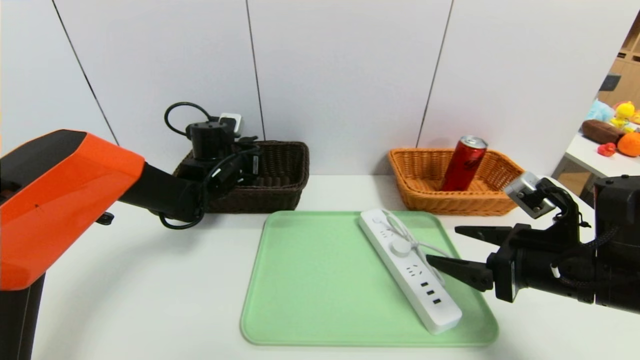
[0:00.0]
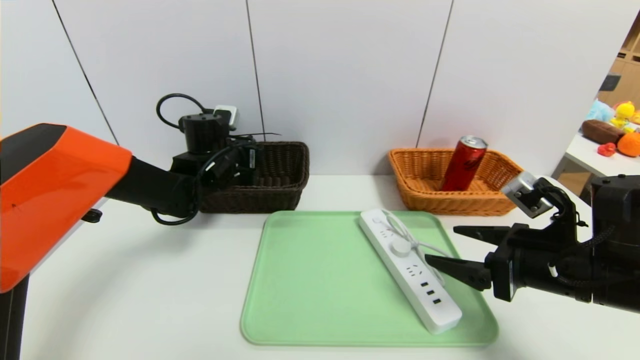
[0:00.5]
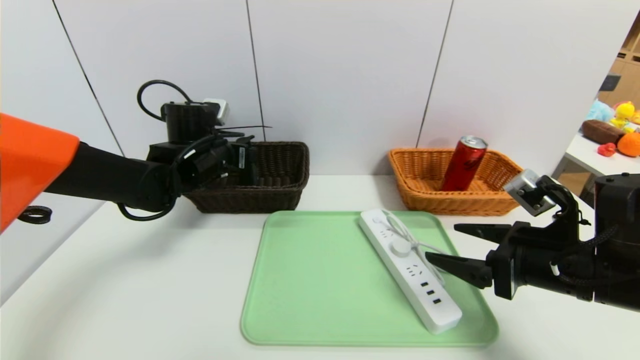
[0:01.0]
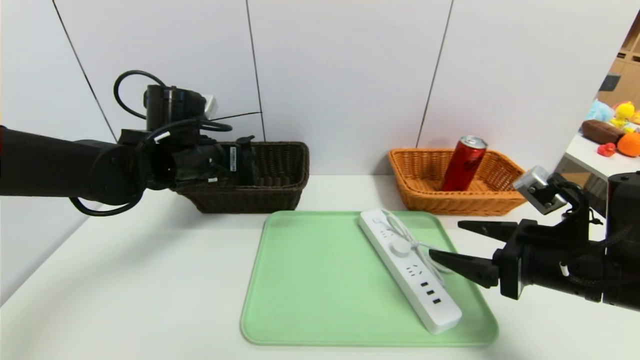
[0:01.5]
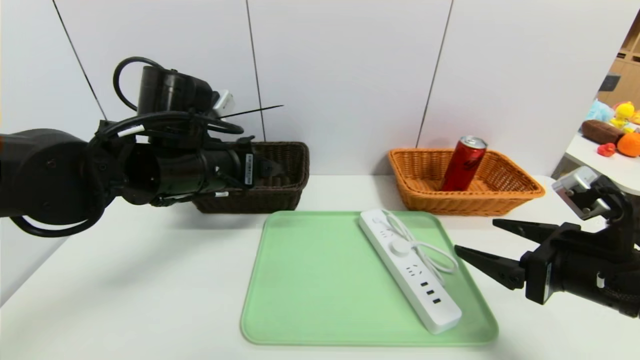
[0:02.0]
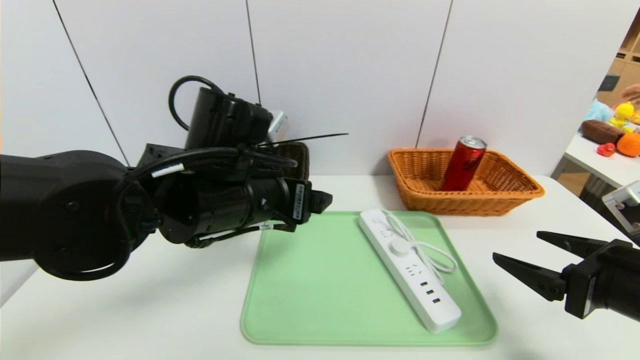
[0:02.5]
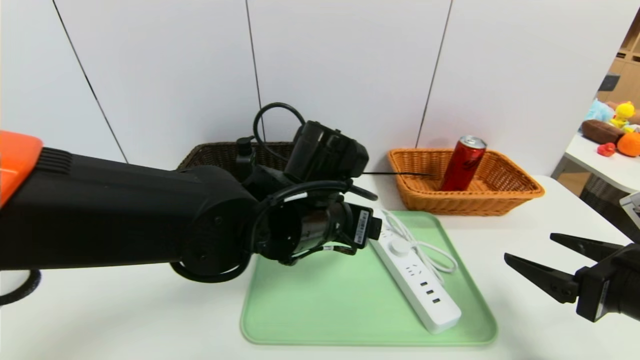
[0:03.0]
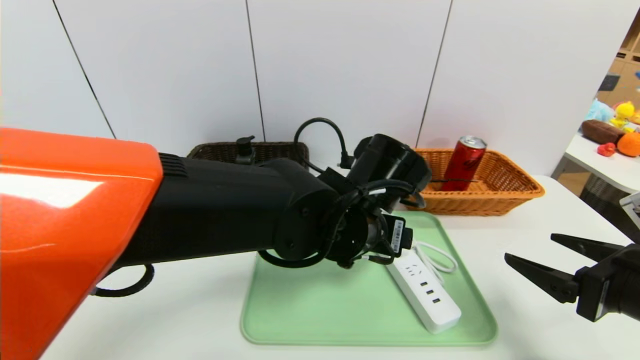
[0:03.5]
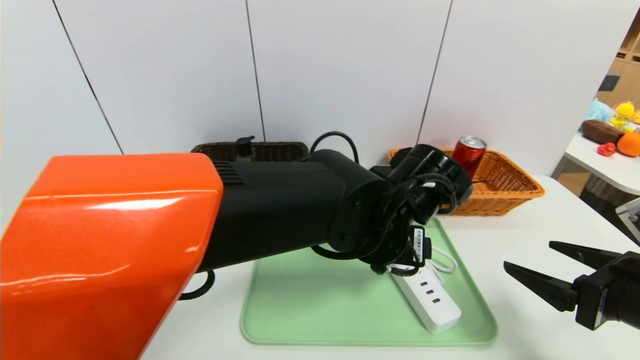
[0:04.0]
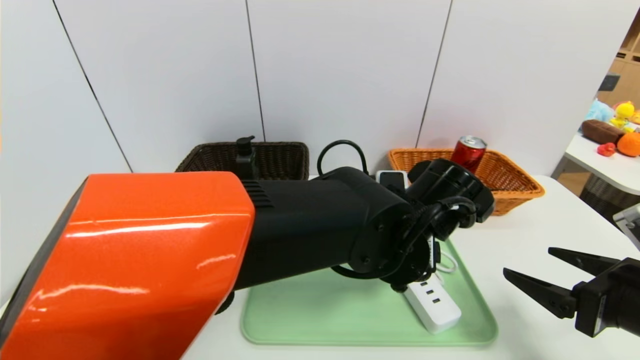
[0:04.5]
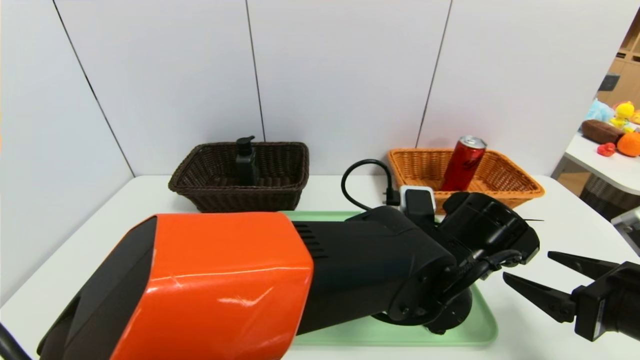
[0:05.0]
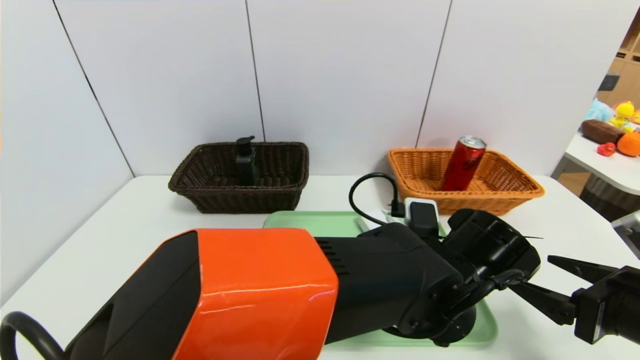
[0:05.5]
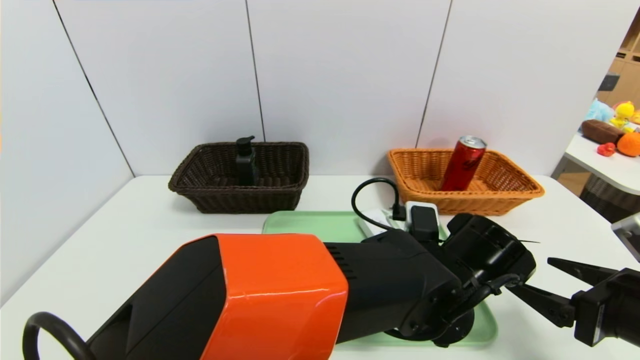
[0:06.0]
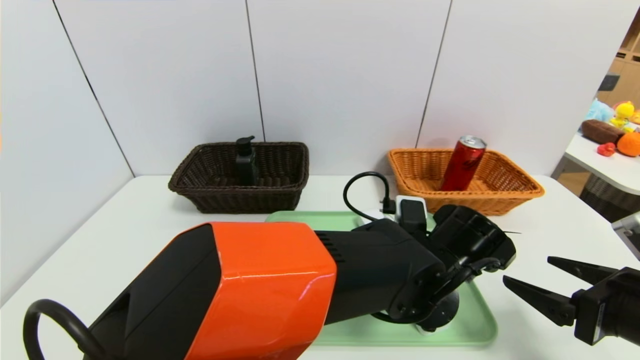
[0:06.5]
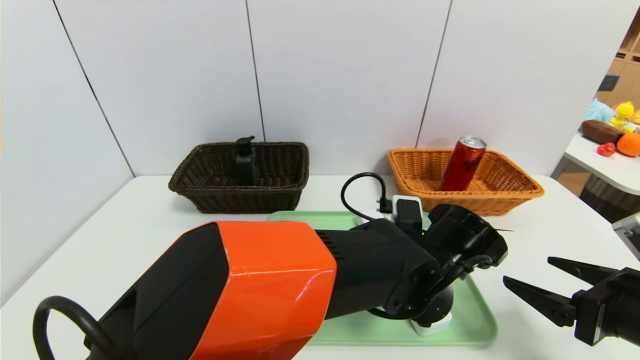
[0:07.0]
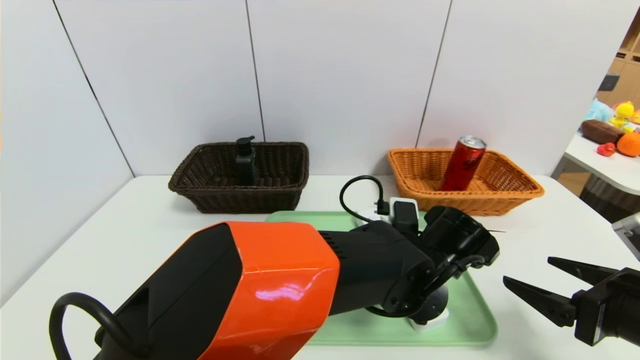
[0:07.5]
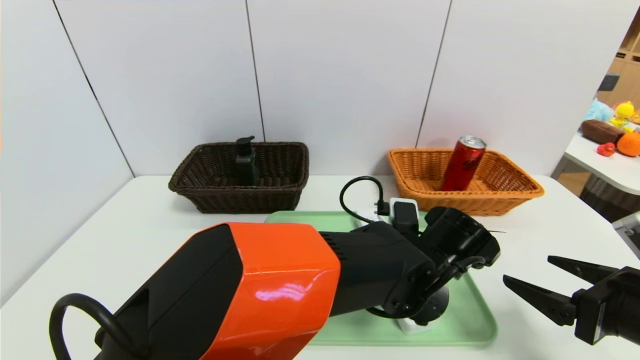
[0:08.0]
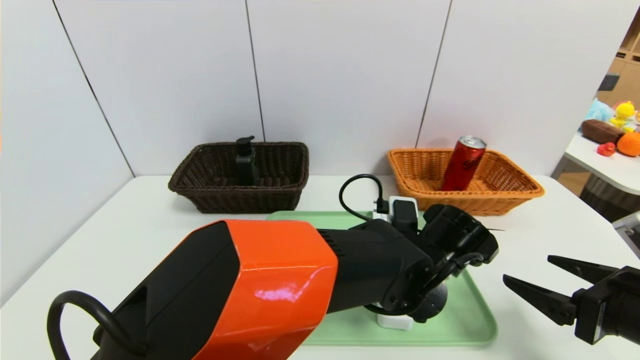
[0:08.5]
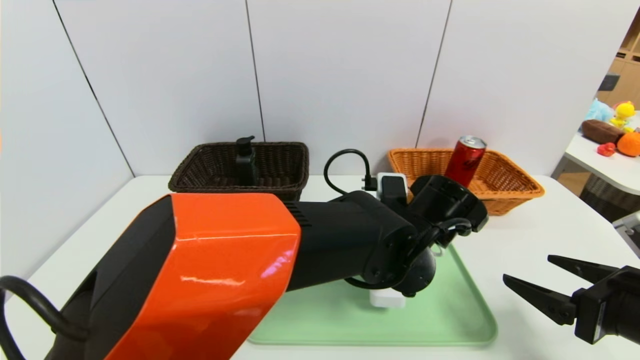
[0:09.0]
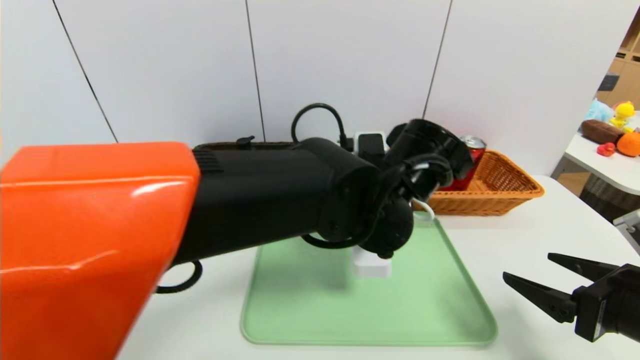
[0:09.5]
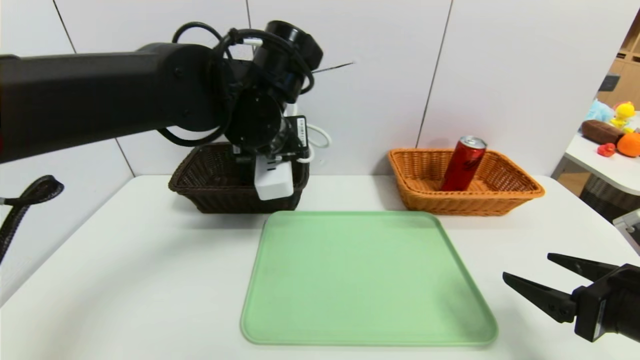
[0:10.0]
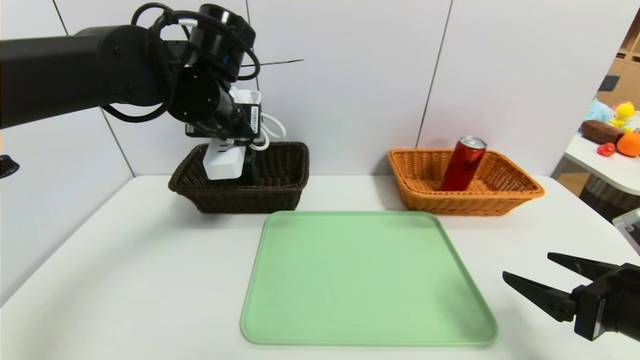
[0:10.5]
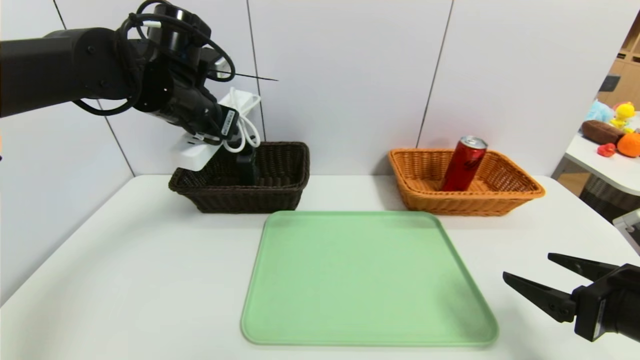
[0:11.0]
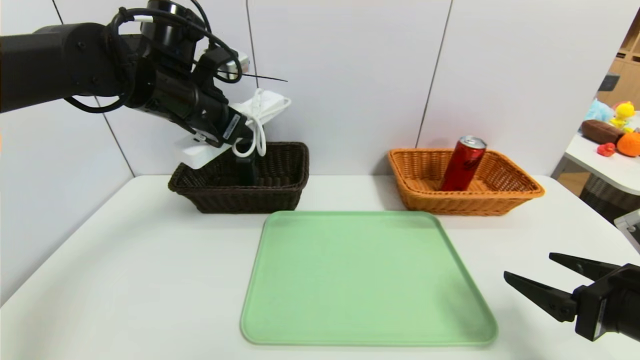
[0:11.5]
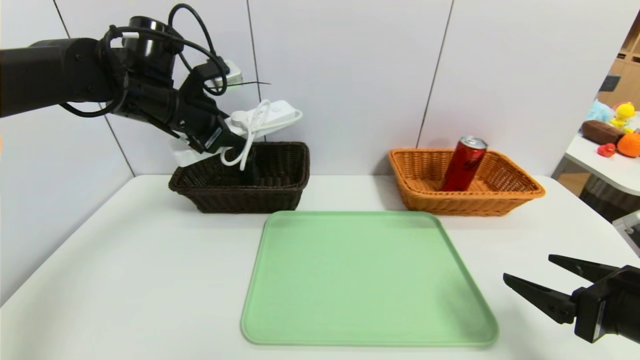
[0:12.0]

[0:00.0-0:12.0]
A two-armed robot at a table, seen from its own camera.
Task of the whole recording: place the food in the right basket with the right gripper, and place the non food items in the left basket with the left gripper.
0.0 to 2.0 s: The left gripper shifts about 20 cm backward and upward, and opens up.
2.0 to 4.0 s: The left gripper moves to the right, some 20 cm.
4.0 to 6.0 s: The left gripper is displaced downward and to the right by about 10 cm.
6.0 to 8.0 s: The left gripper closes.
8.0 to 10.0 s: The left gripper moves to the left and upward, some 25 cm.
10.0 to 12.0 s: The left gripper travels to the left and forward by approximately 15 cm.

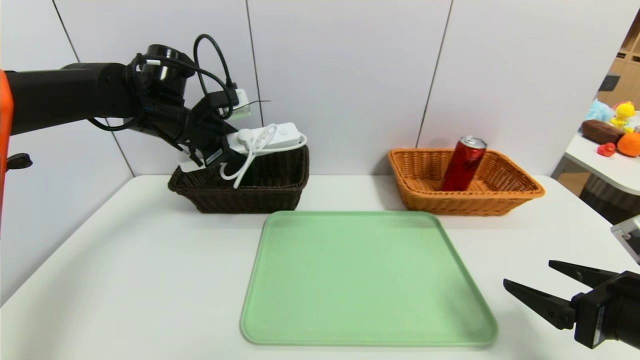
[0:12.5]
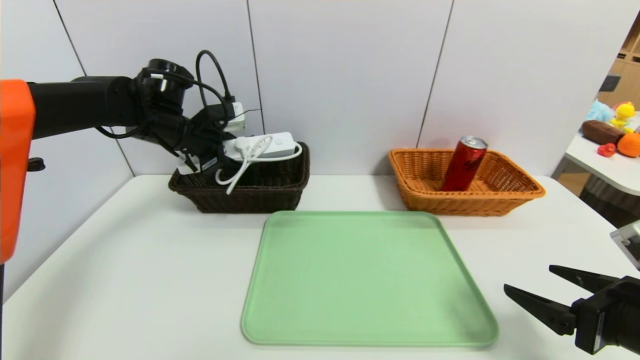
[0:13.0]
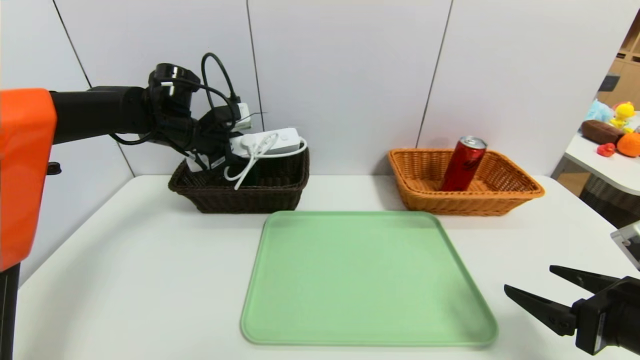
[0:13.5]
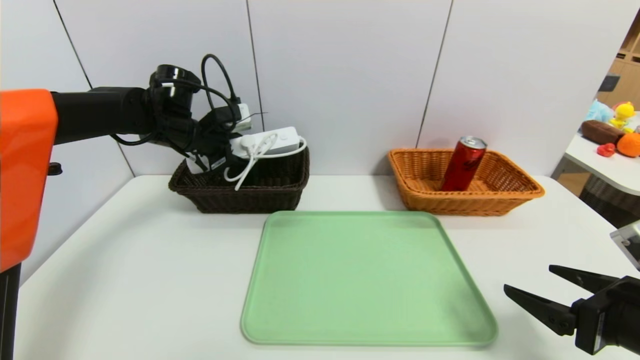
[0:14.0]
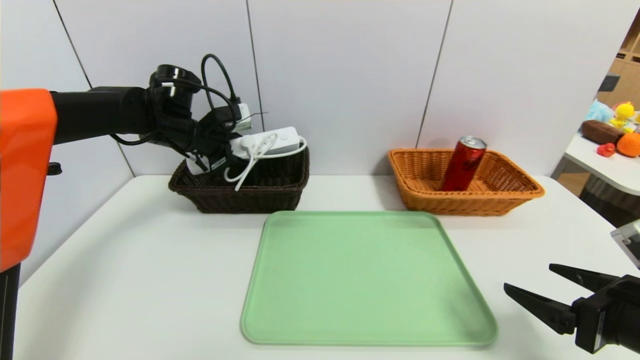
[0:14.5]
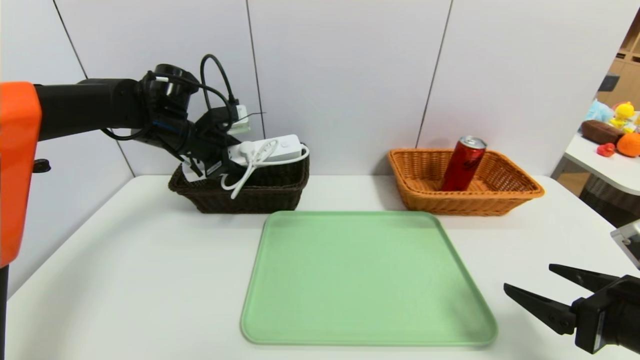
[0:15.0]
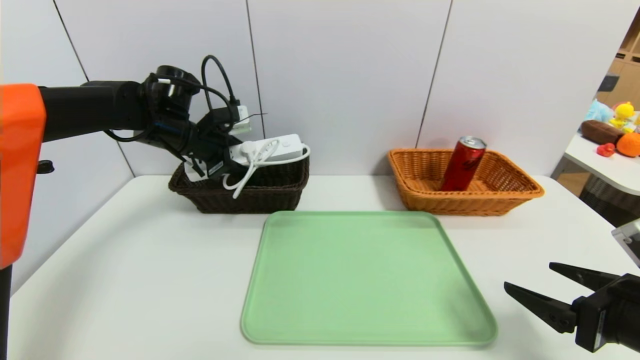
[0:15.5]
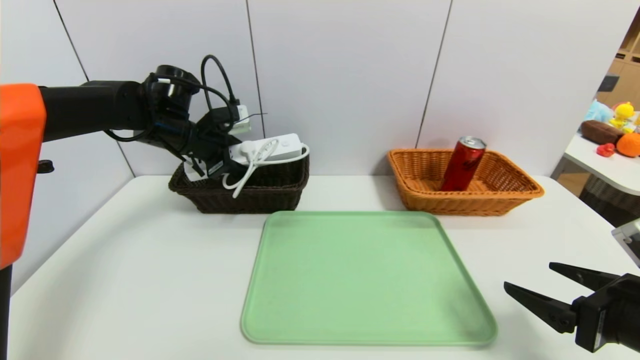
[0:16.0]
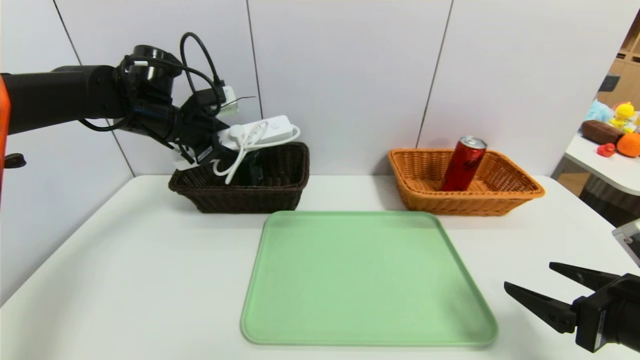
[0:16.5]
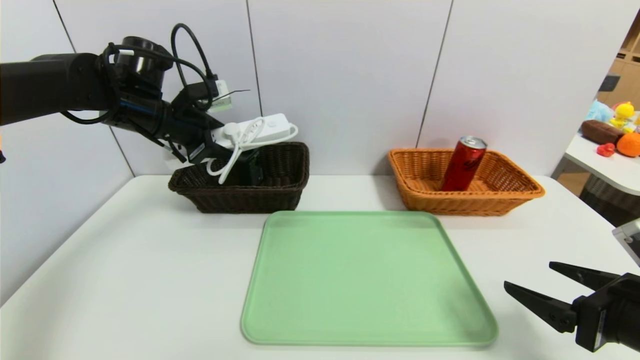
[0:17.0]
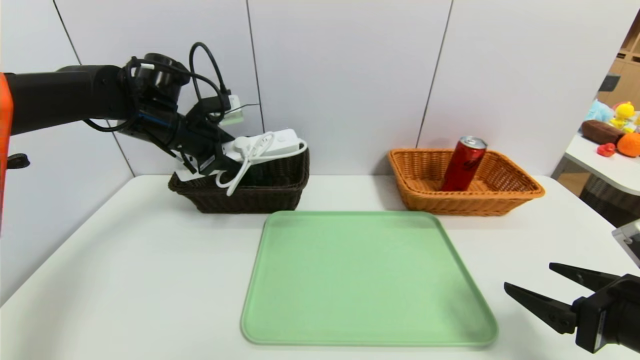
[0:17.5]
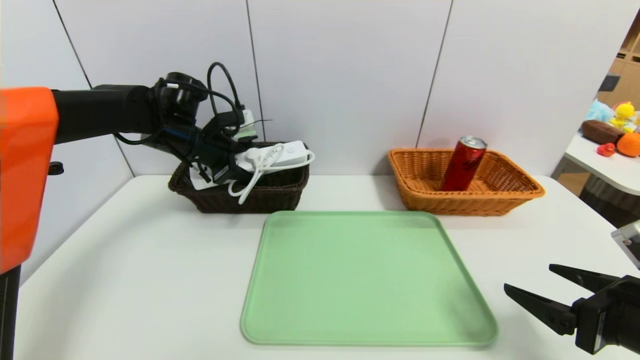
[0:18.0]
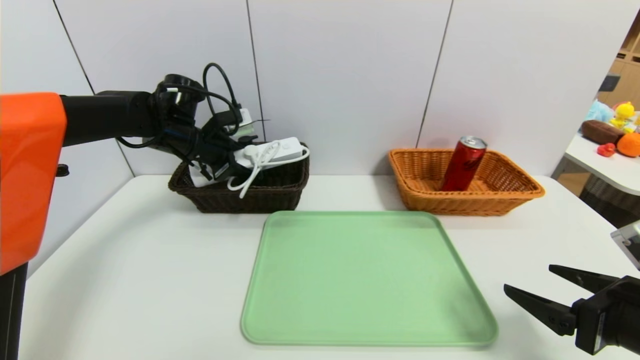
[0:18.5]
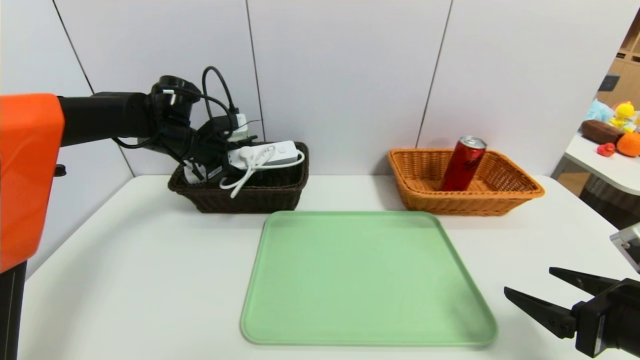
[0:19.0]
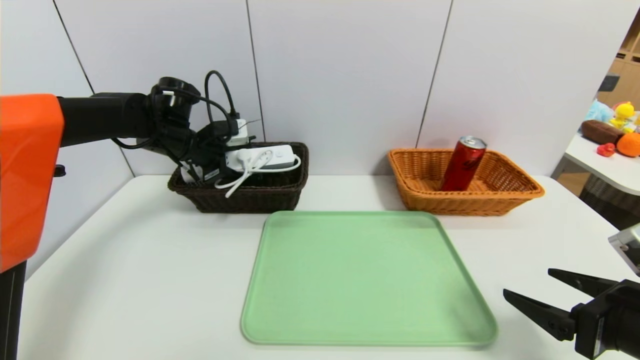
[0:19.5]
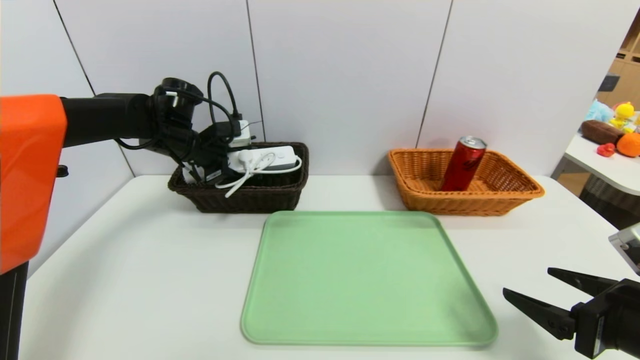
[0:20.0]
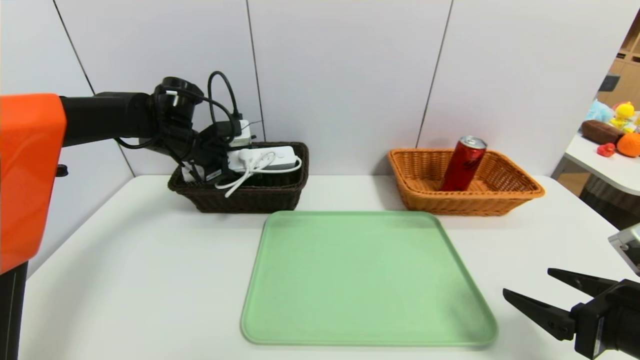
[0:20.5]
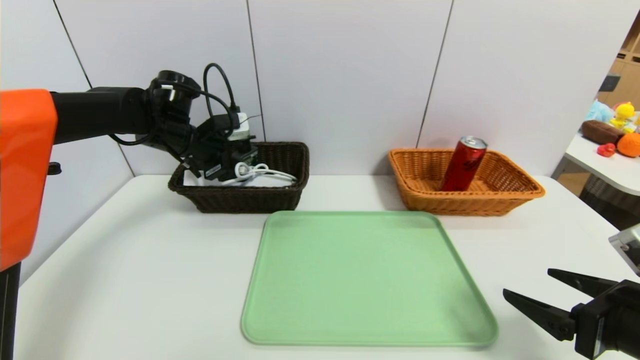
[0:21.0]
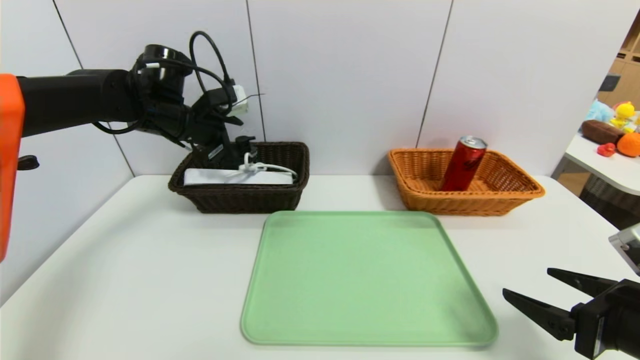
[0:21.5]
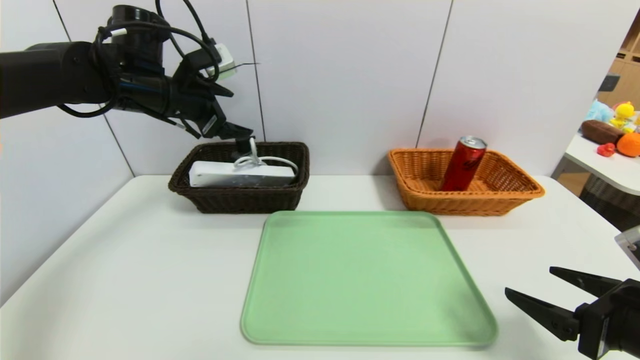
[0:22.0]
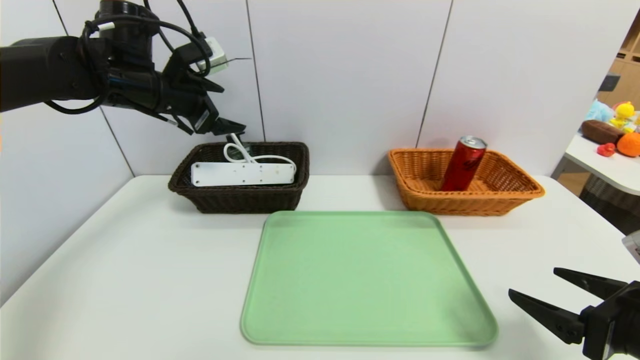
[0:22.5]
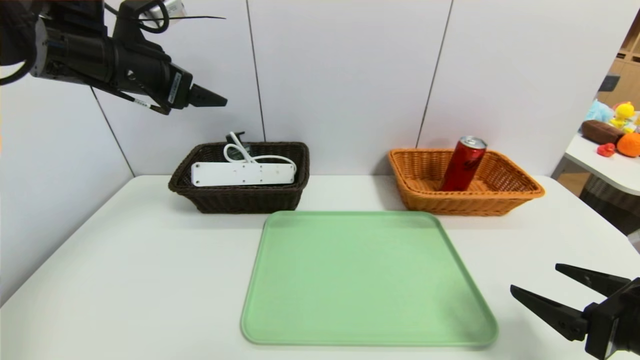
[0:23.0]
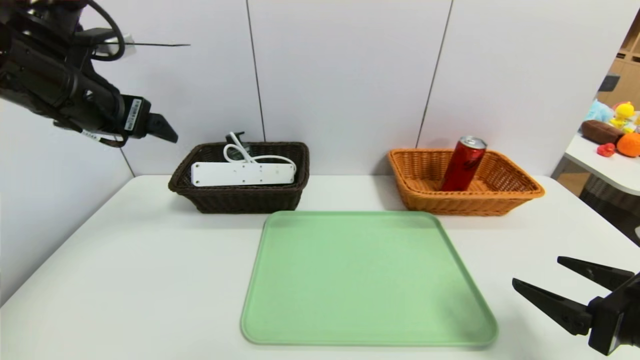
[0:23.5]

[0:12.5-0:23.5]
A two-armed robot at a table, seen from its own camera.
Task of the whole recording: place the food in the right basket with the right gripper, and place the non food items in the left basket with the left gripper.
Step, 12.5 to 21.5 s: Grasp the power strip and put it in the left basket.
12.5 to 20.0 s: The grippers make only small movements.
20.0 to 21.5 s: The left gripper goes roughly 5 cm upward, and opens up.
21.5 to 23.5 s: The left gripper goes approximately 15 cm backward and upward.
